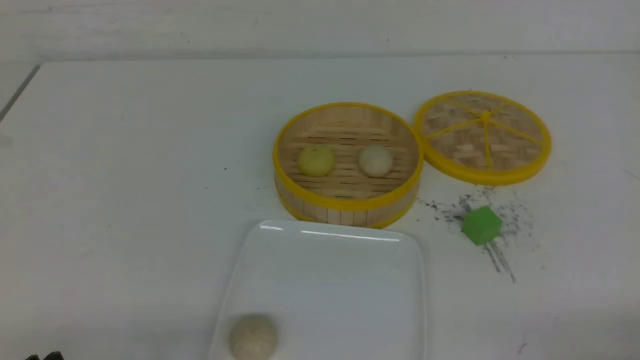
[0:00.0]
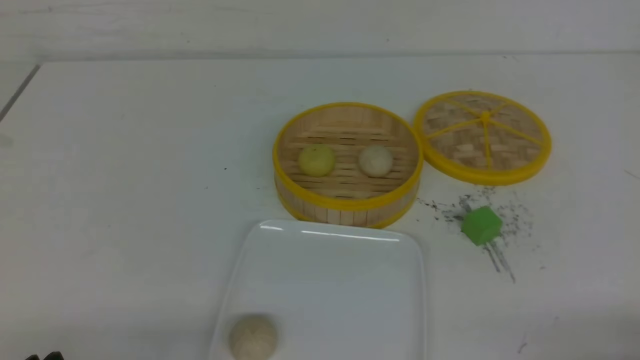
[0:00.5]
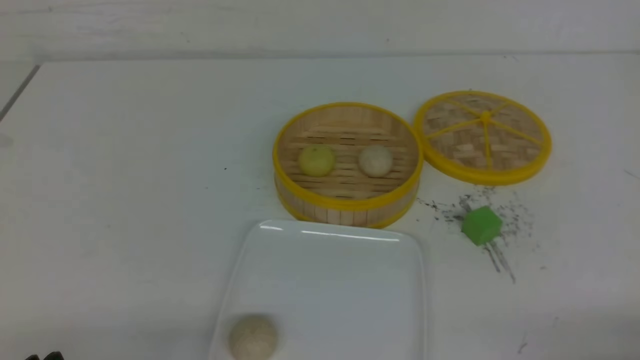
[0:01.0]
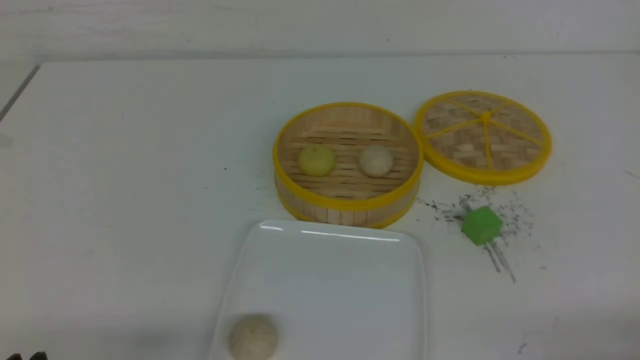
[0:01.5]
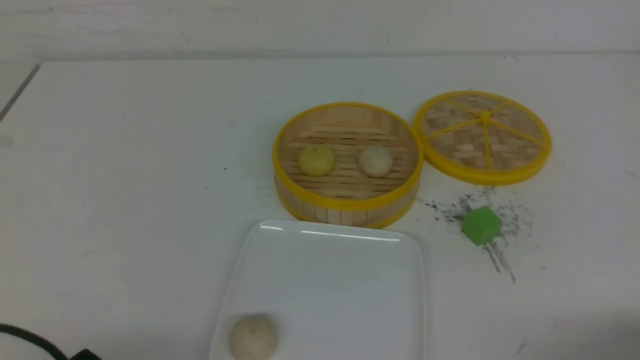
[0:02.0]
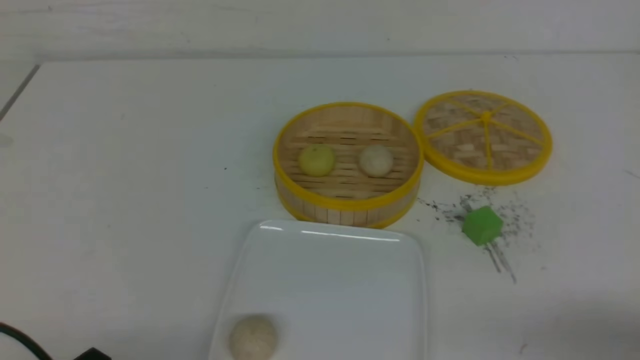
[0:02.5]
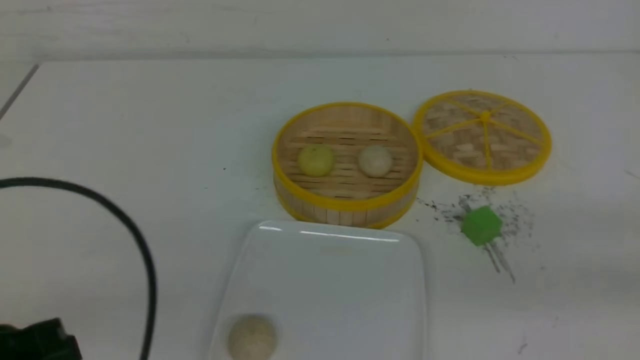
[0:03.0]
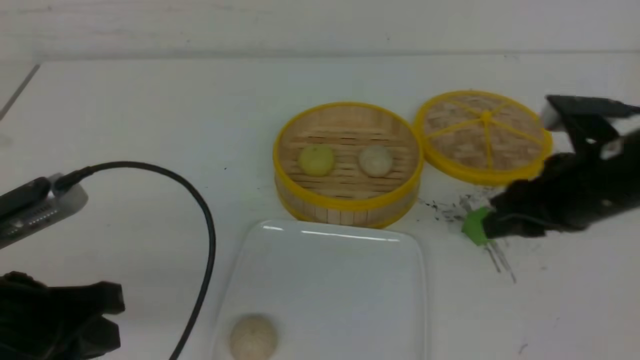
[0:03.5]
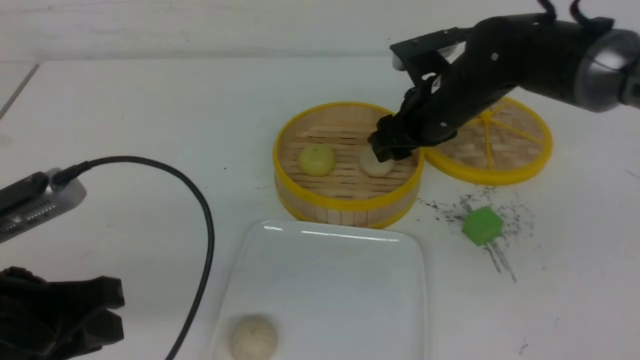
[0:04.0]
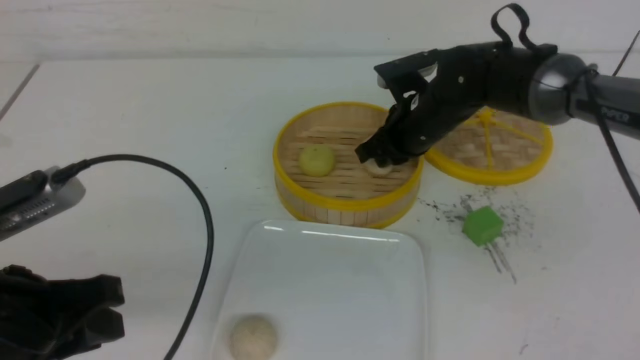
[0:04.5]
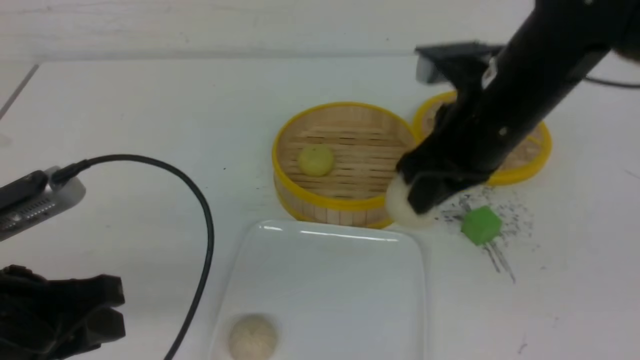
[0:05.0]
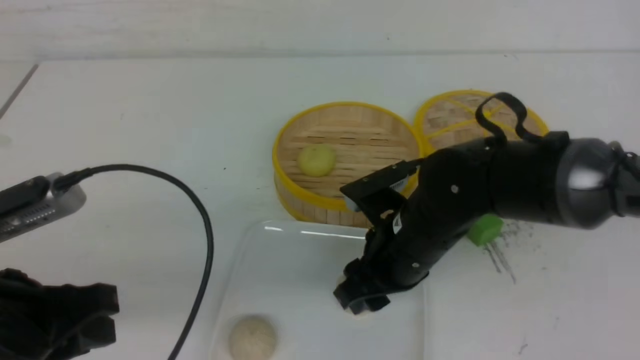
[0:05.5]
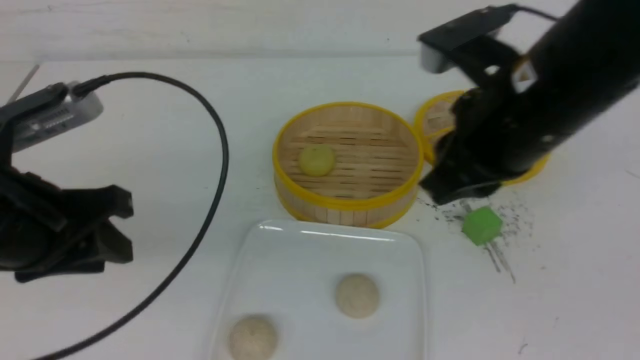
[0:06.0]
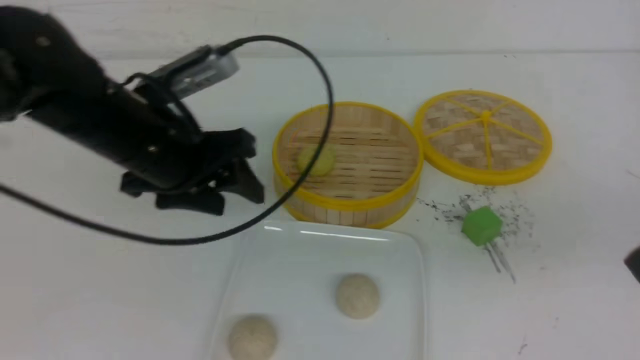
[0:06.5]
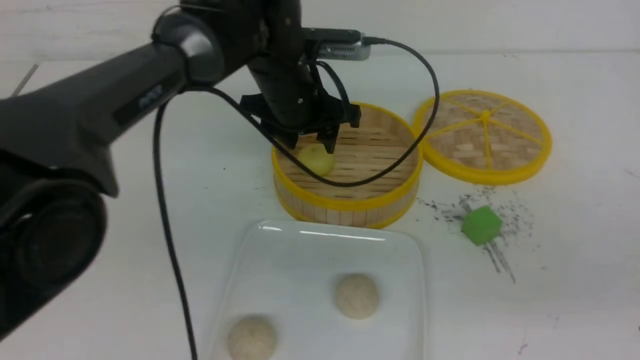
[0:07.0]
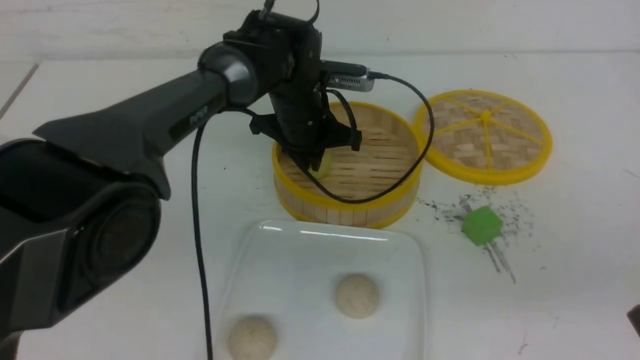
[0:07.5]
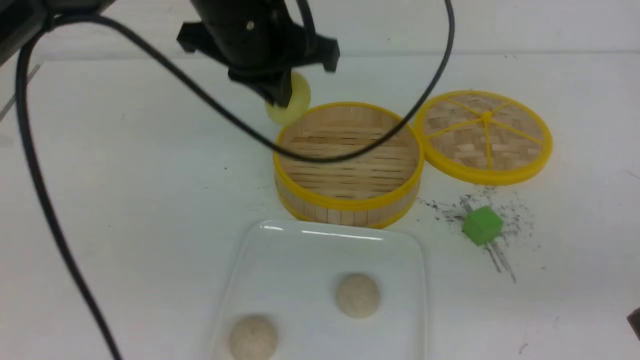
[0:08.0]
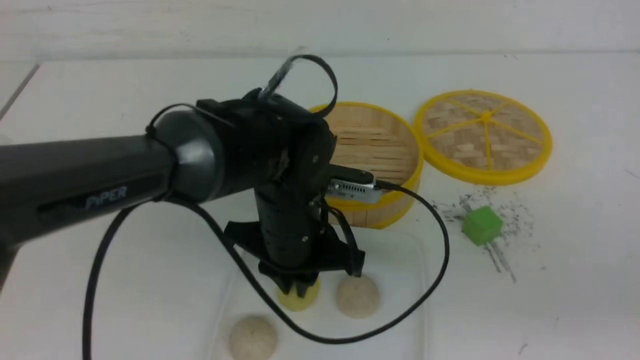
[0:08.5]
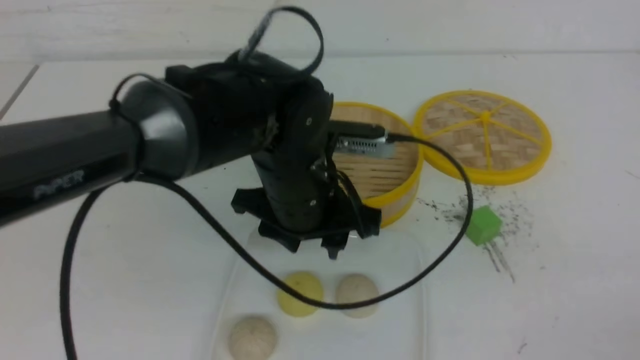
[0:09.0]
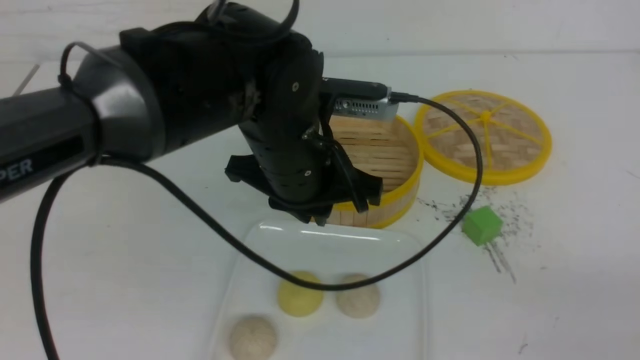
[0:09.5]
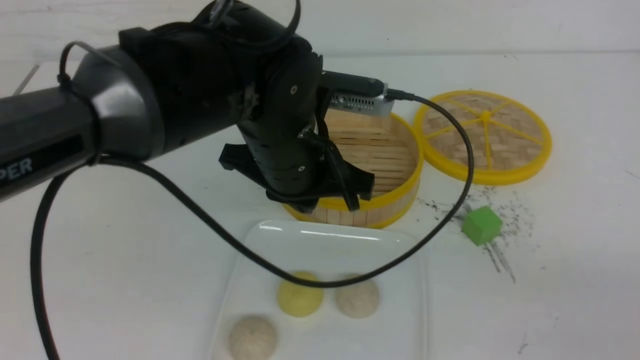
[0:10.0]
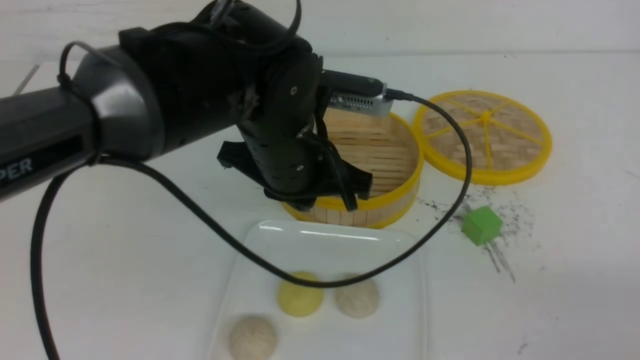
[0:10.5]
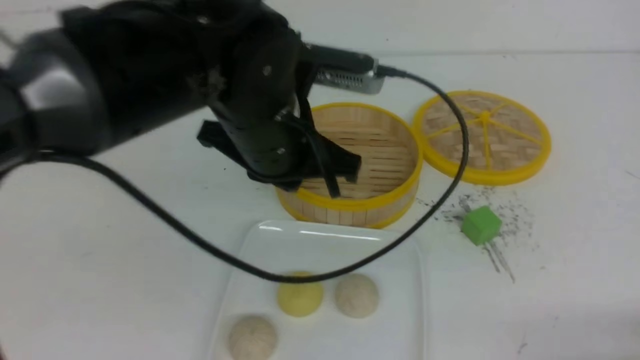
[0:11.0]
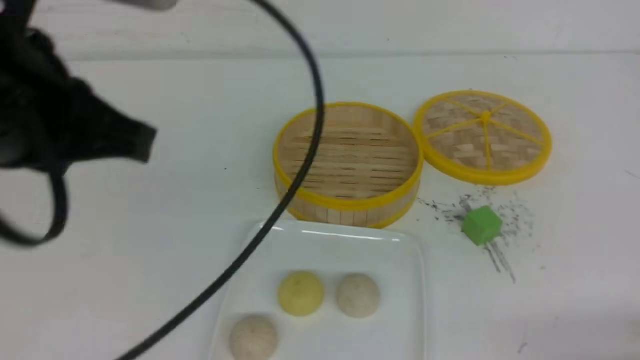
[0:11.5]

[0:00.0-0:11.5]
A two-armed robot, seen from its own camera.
Step, 0:00.0 to 0:04.5: use the right arm to grab the steamed stuffed bun that is closest to it.
Step, 0:05.0 to 0:05.5: use the right arm to put the steamed stuffed bun into the plate.
Step, 0:06.0 to 0:07.5: use the left arm to grab the steamed stuffed bun that is closest to it.
Step, 0:08.0 to 0:08.5: use the left arm to put the steamed stuffed bun into the plate.
0:02.0 to 0:04.0: The left gripper shifts some 15 cm upward and forward, and closes, then opens again, while the right gripper travels forward and to the left by roughly 40 cm, and opens up.
0:04.0 to 0:06.0: The right gripper shifts approximately 20 cm backward and upward, and closes its fingers. The left gripper is displaced forward by about 5 cm.
0:06.0 to 0:07.5: The right gripper shifts roughly 15 cm backward and to the right, while the left gripper heads forward and to the right, covering about 30 cm, and opens, then closes again.
0:07.5 to 0:09.5: The right gripper is displaced backward and to the right by roughly 10 cm, while the left gripper is displaced backward by some 15 cm, and opens and closes again.
0:09.5 to 0:11.5: The right gripper travels downward by approximately 10 cm, while the left gripper moves to the left, backward and upward, approximately 20 cm.

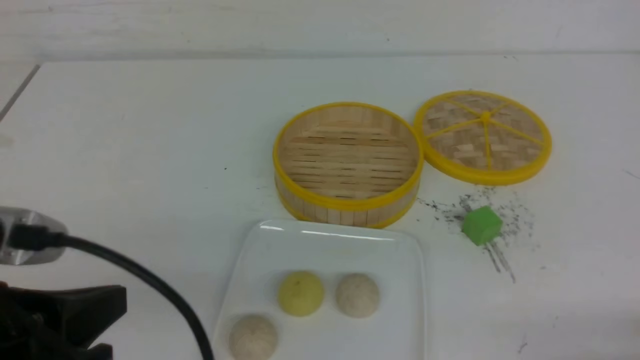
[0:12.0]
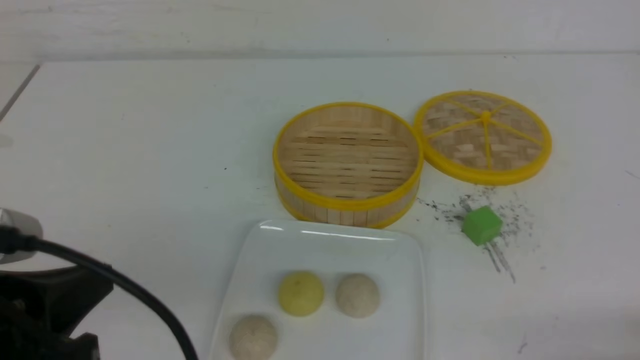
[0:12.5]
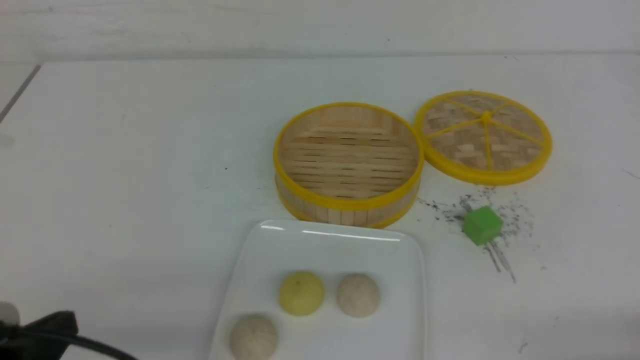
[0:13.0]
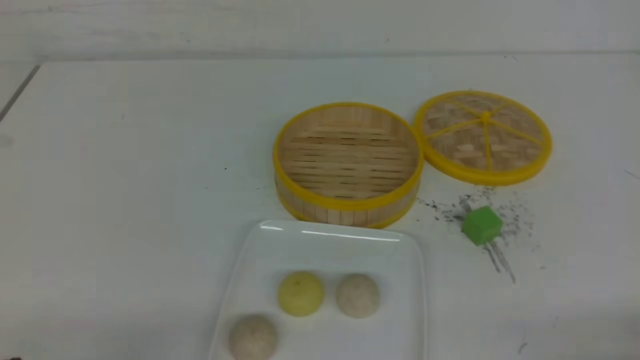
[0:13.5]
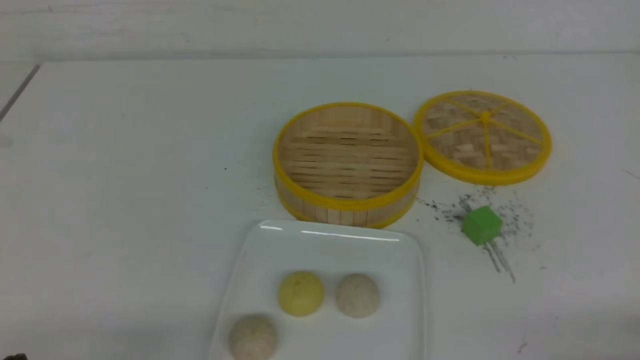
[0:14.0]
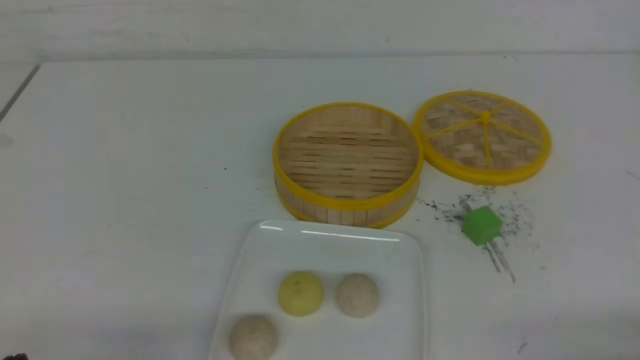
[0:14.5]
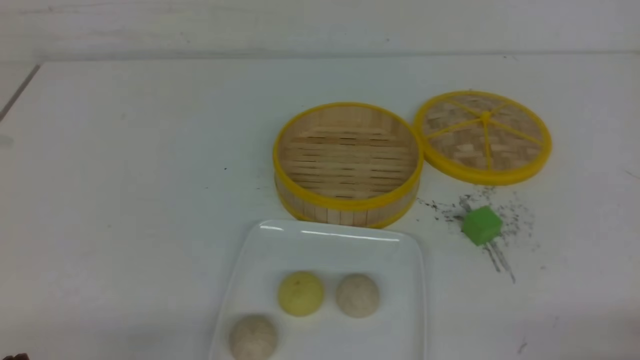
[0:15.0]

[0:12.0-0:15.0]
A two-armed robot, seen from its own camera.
0:12.0 to 0:13.5: The left gripper moves downward and to the left, some 15 cm.
0:13.5 to 0:15.0: Both grippers stay put.
